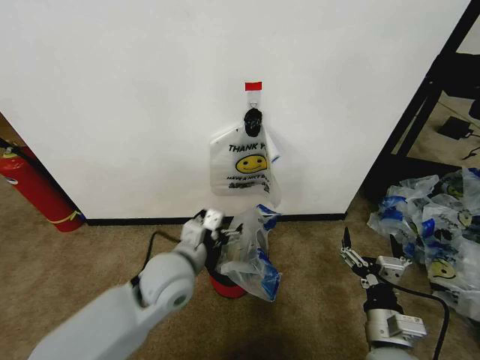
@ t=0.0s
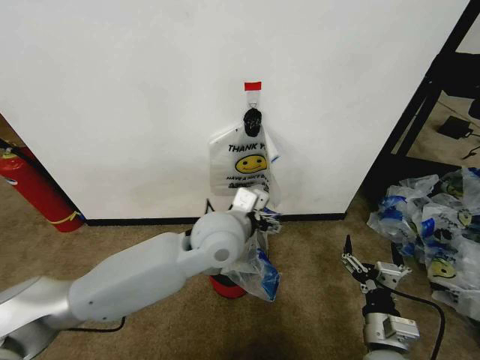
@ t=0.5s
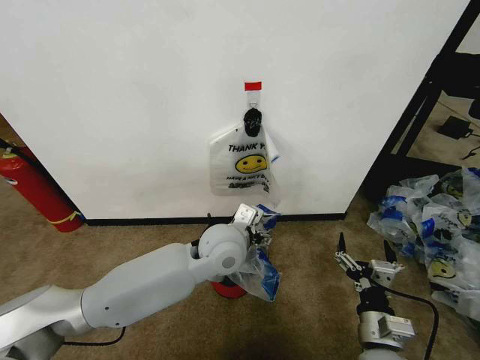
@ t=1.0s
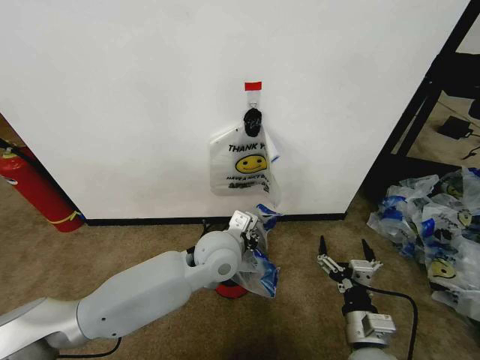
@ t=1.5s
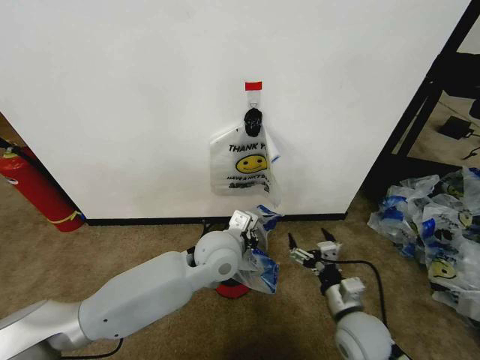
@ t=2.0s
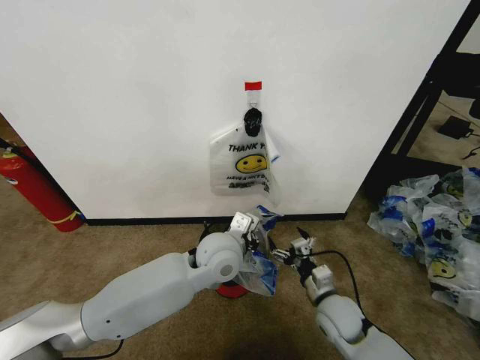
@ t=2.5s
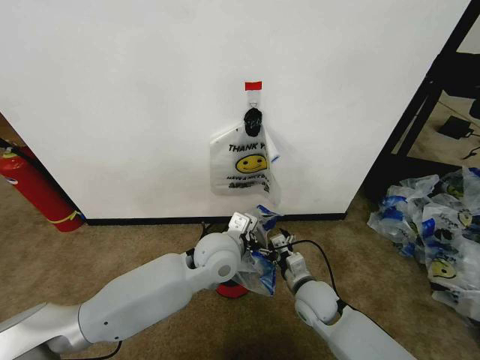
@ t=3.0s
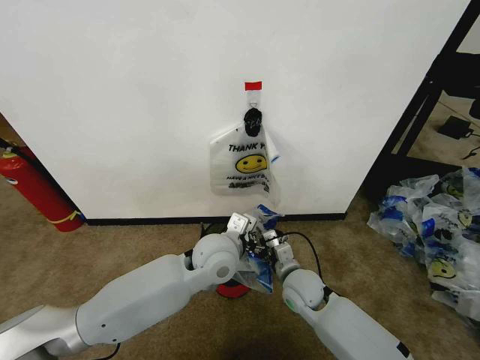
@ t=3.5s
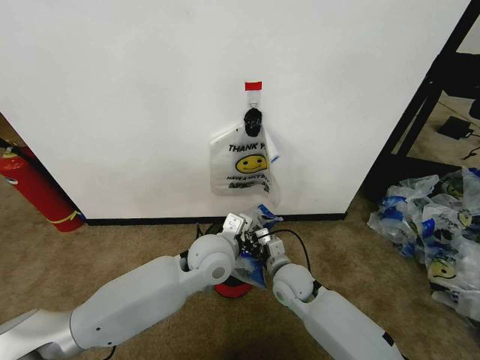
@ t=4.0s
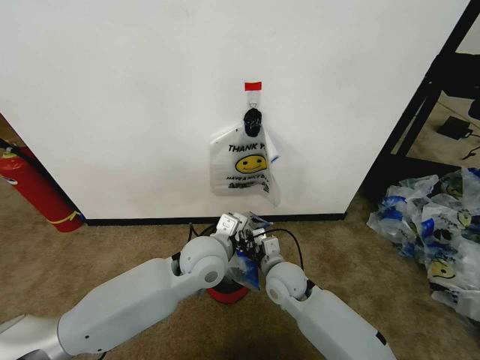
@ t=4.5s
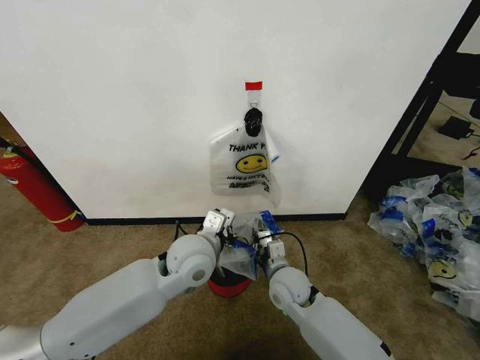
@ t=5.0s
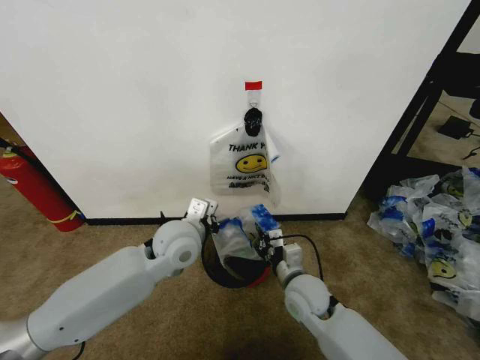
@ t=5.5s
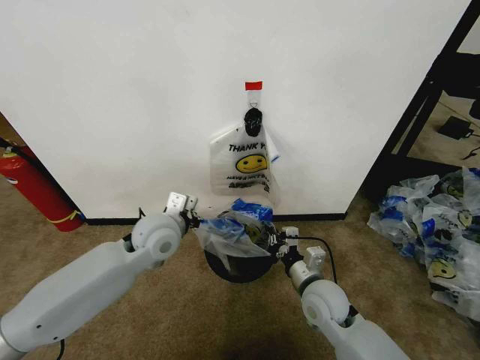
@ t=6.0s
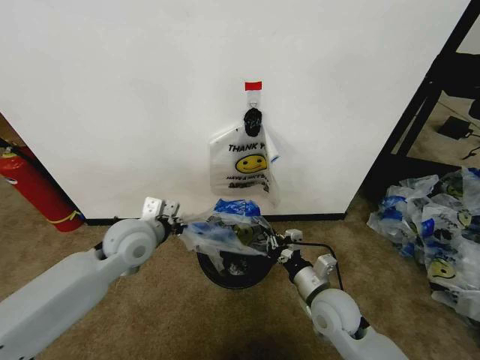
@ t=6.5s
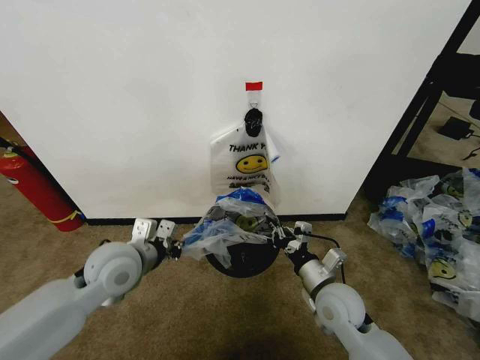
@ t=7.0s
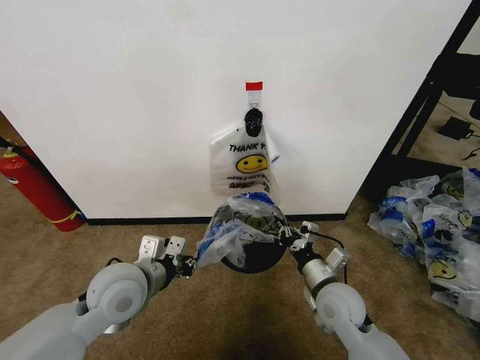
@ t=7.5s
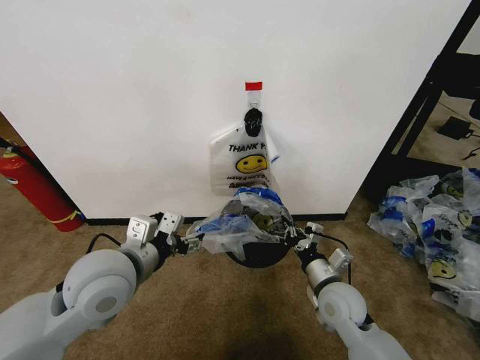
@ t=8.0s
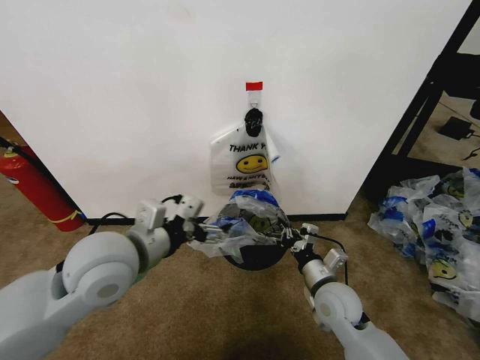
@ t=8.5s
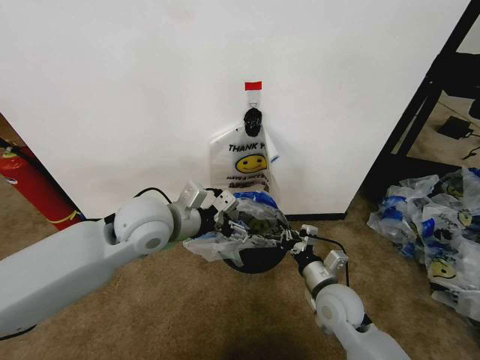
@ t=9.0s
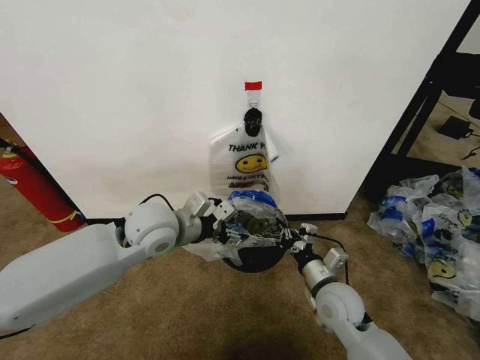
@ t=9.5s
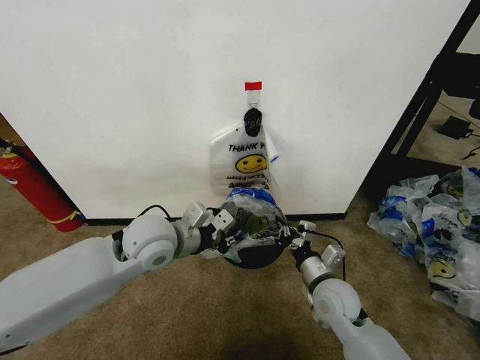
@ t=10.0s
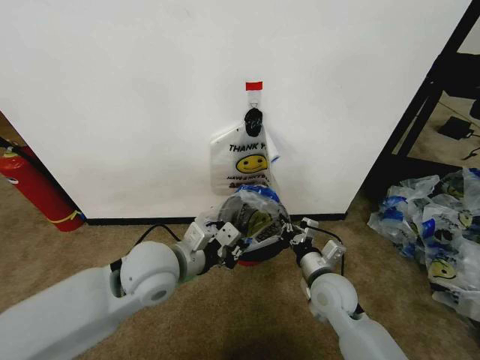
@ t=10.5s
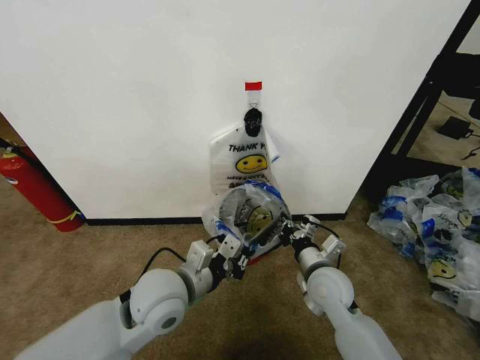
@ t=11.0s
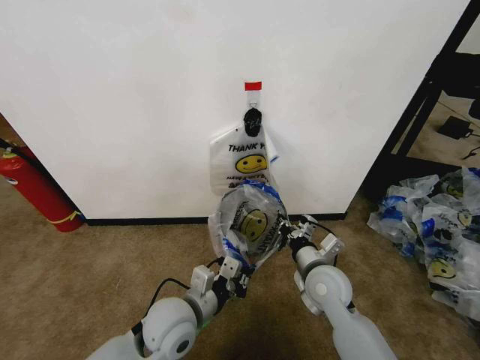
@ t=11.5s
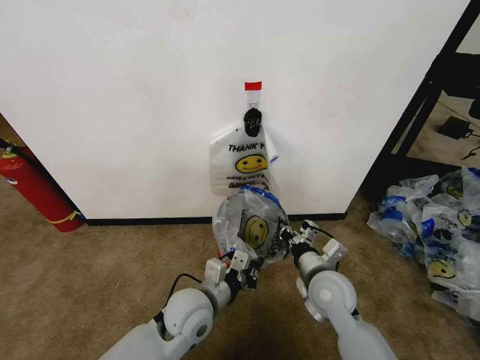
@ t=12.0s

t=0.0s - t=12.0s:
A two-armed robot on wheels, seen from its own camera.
Task of the whole recording: Pick up the garbage bag from the wall and place it over the trash bin.
t=0.0s - t=2.0s: The right gripper moves forward, approximately 5 cm. Meanwhile the left gripper goes some 10 cm to the right and forward, and closes.
t=2.0s - t=4.0s: The right gripper moves forward and to the left, roughly 15 cm.
t=4.0s - t=6.0s: The right gripper moves to the right and backward, approximately 10 cm, and closes. The left gripper moves to the left, approximately 10 cm.
t=6.0s - t=8.0s: The left gripper shifts approximately 15 cm backward and upward, and opens.
t=8.0s - t=10.0s: The left gripper shifts roughly 10 cm forward, and closes.
t=10.0s - t=12.0s: The left gripper goes approximately 15 cm downward, backward and to the right.

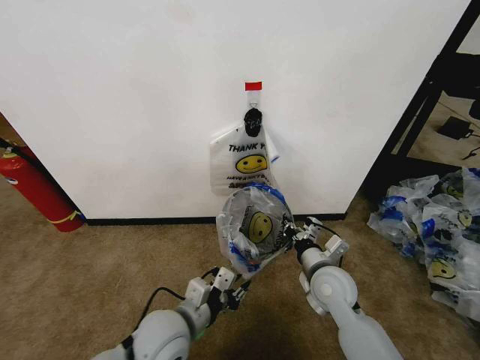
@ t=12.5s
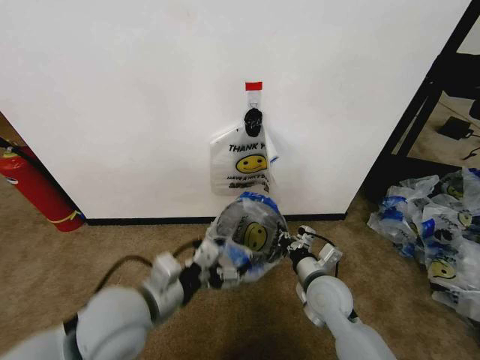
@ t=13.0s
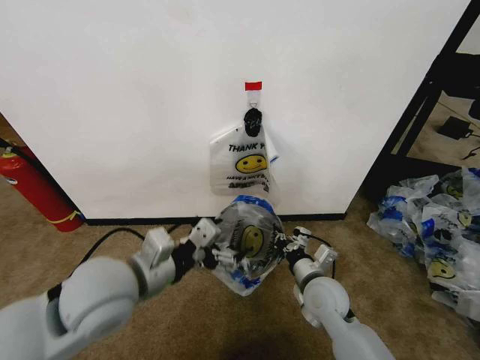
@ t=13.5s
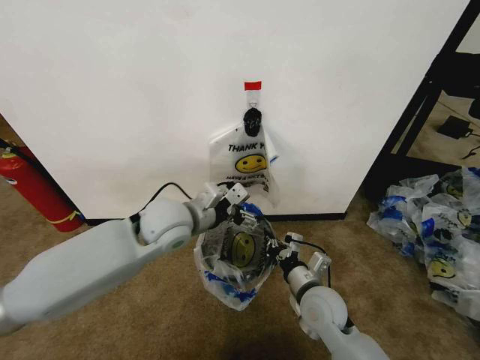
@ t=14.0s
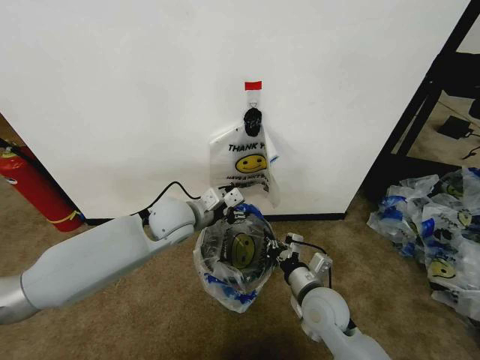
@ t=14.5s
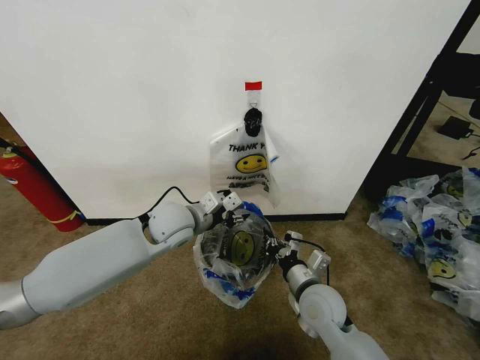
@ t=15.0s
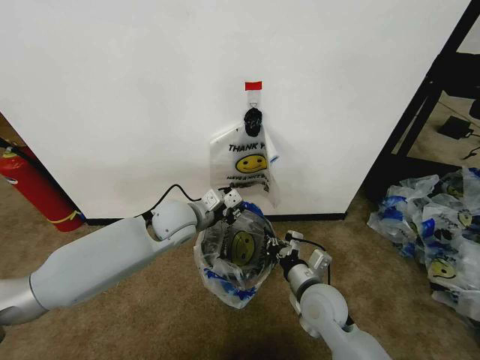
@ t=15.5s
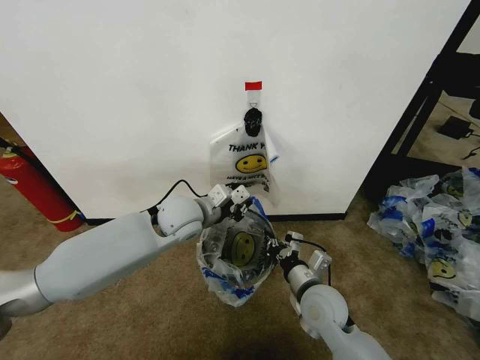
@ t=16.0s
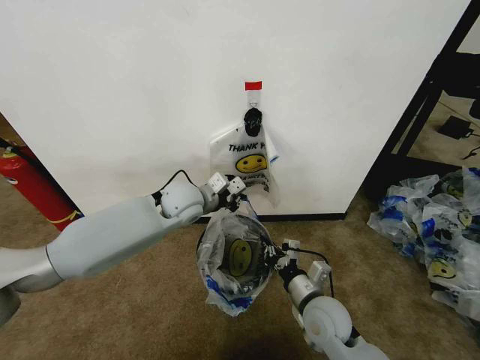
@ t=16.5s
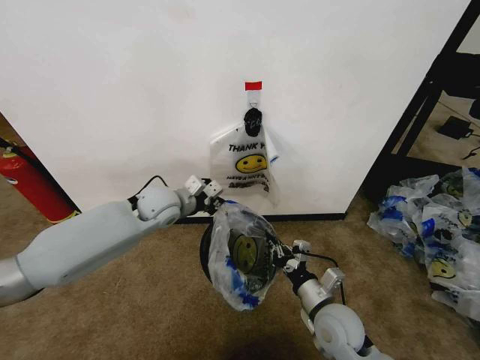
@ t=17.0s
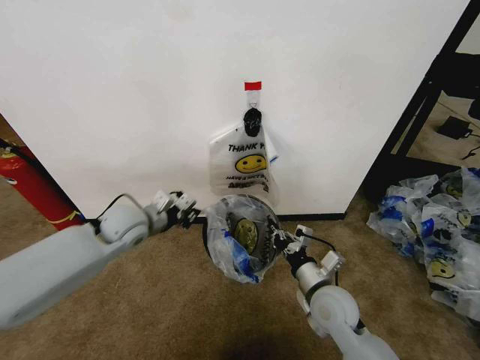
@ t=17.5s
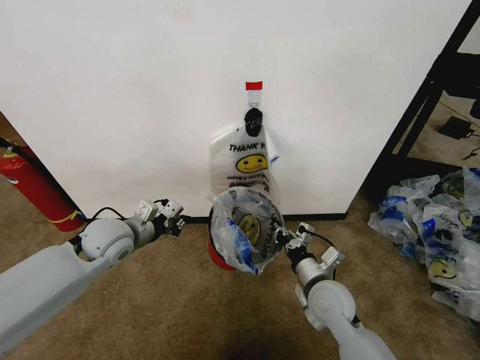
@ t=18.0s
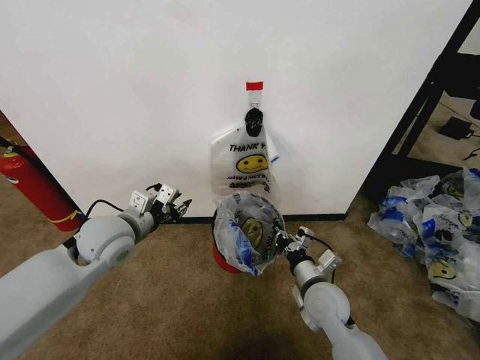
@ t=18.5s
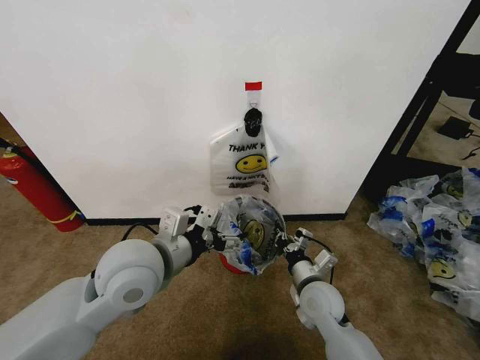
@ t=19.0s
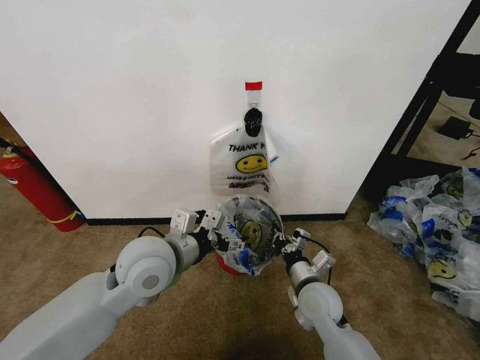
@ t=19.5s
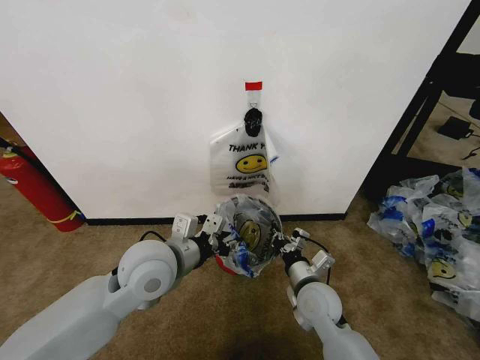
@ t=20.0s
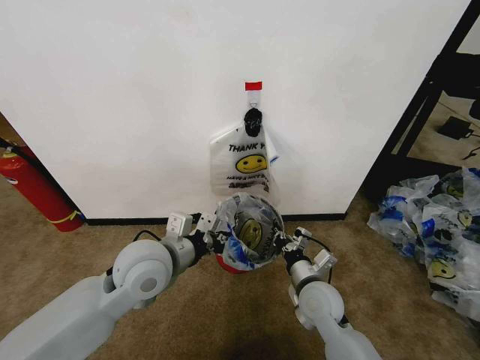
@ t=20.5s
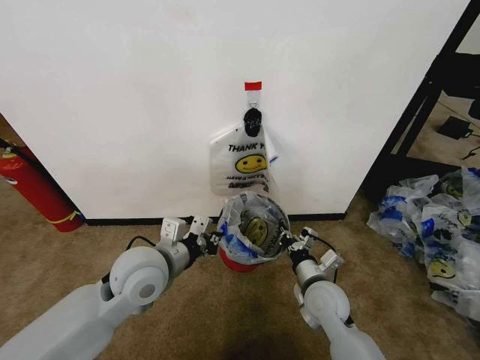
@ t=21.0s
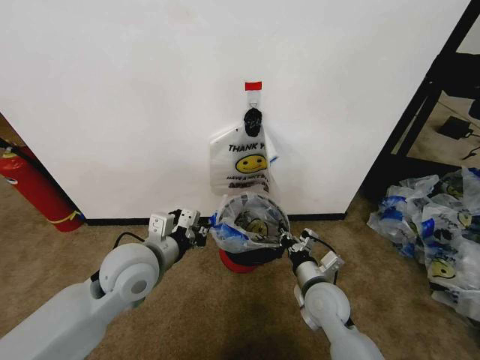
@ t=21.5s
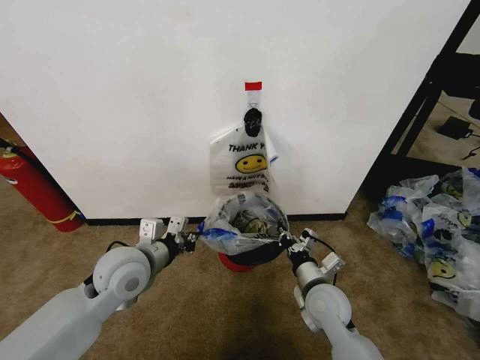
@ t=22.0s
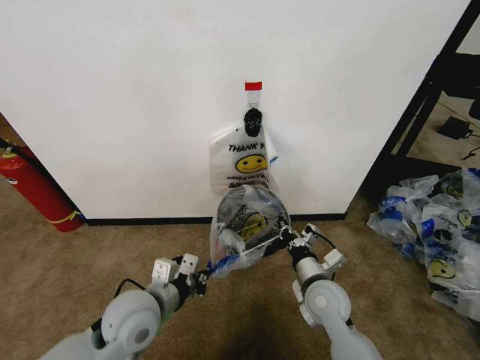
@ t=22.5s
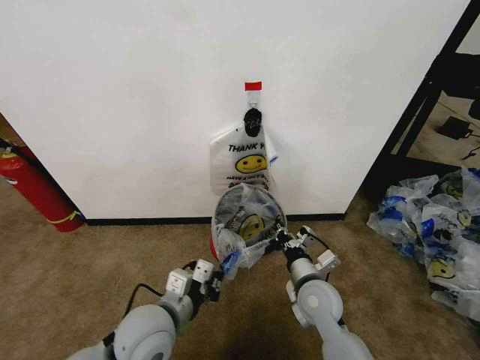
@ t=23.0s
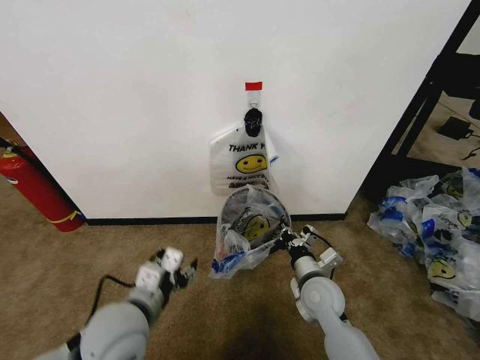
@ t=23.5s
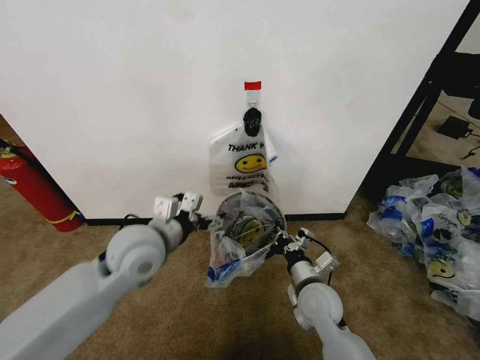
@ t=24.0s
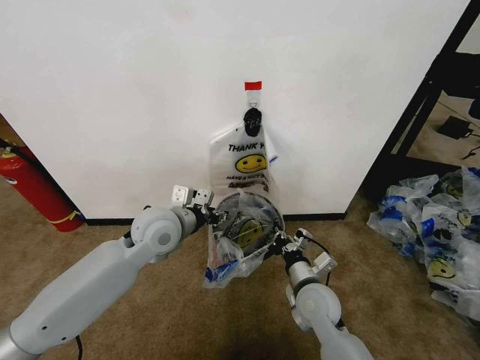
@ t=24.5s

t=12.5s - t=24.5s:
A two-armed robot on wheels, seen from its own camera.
Task of the whole recording: Pick up the garbage bag from the wall and place it over the trash bin.
t=12.5s - t=14.5s: The right gripper changes place by roughly 5 cm; the left gripper is displaced forward and upward by approximately 20 cm, and opens, then closes once more.
t=14.5s - t=16.5s: The left gripper goes approximately 5 cm forward, and closes up.
t=16.5s - t=18.5s: The left gripper moves to the left and backward, roughly 15 cm, and opens up.
t=18.5s - t=20.5s: The left gripper heads to the right and backward, covering about 10 cm, and closes.
t=20.5s - t=22.5s: The left gripper heads downward and backward, covering about 10 cm.
t=22.5s - t=24.5s: The left gripper moves forward and upward, about 15 cm, and opens up.

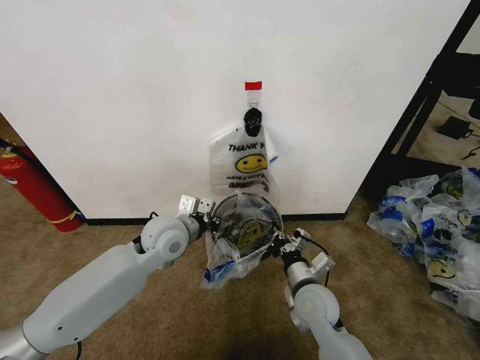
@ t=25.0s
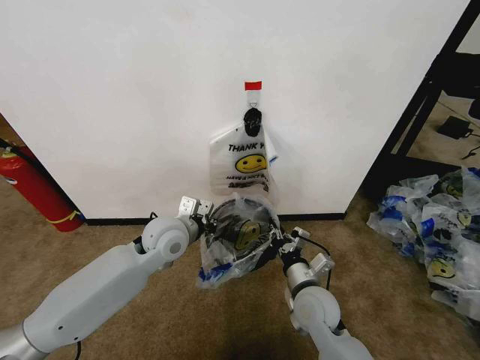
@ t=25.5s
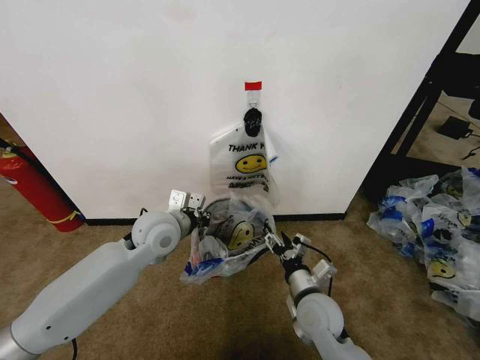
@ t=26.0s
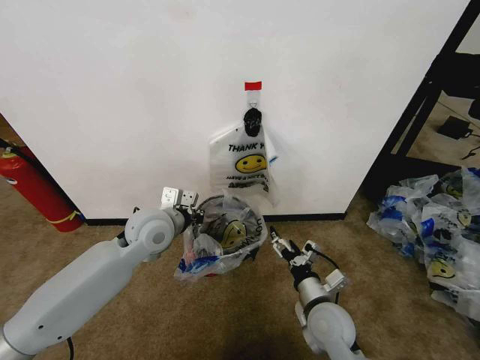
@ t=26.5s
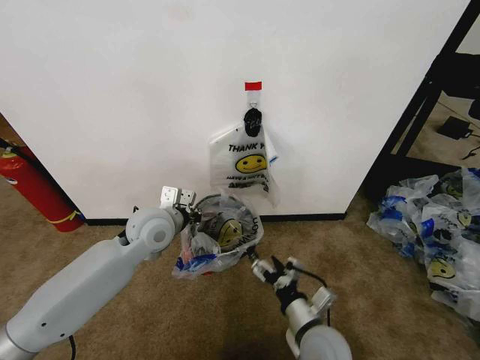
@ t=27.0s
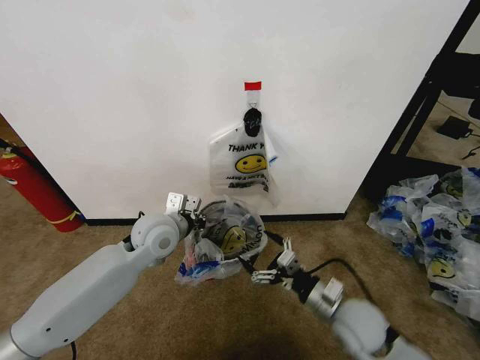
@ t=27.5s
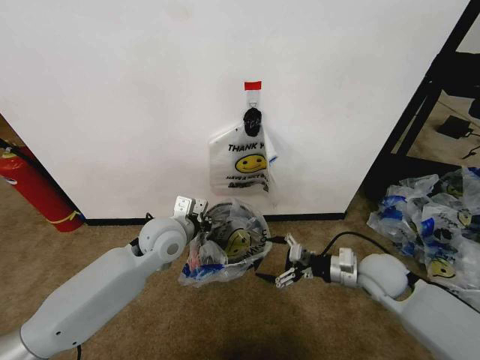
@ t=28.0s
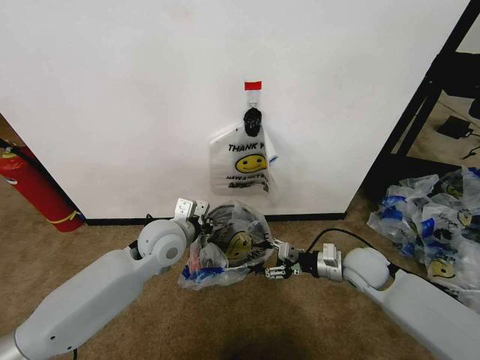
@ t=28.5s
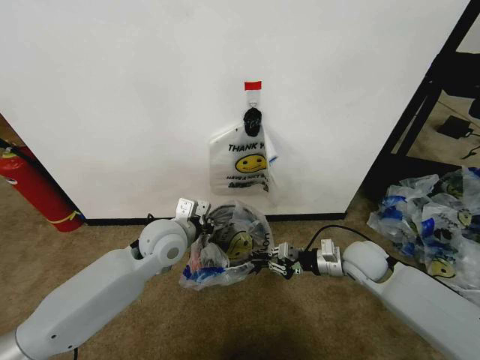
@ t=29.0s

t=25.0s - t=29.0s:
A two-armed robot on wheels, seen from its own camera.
Task of the whole recording: Pick up the garbage bag from the wall and place it over the trash bin.
t=25.0s - t=27.0s: The right gripper heads backward, covering about 10 cm, and opens.
t=27.0s - t=29.0s: The right gripper moves forward and to the right, roughly 20 cm, and closes.
